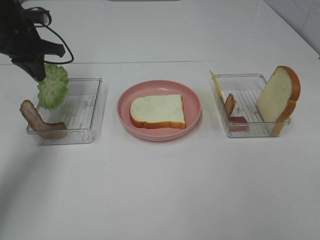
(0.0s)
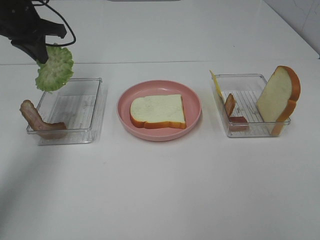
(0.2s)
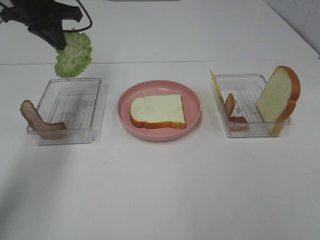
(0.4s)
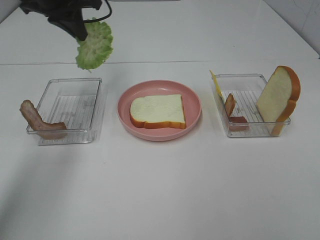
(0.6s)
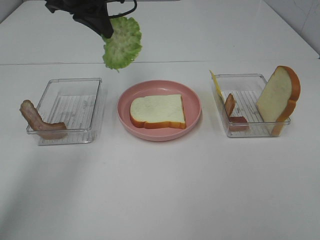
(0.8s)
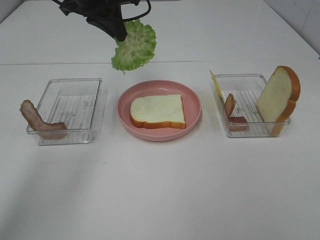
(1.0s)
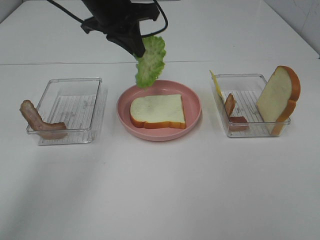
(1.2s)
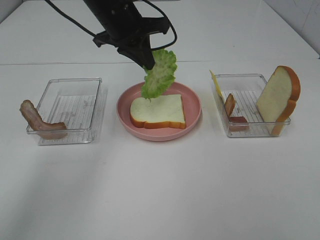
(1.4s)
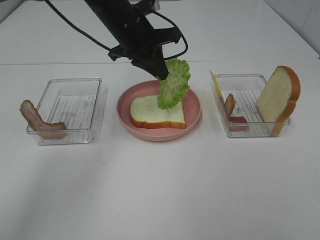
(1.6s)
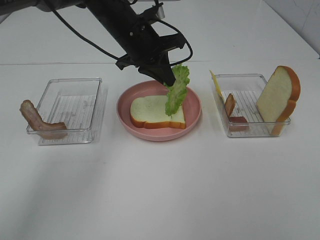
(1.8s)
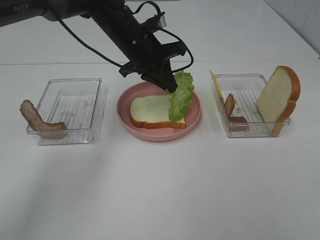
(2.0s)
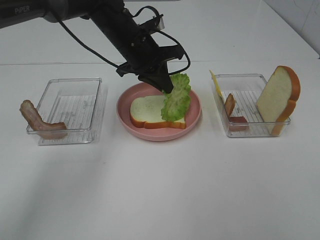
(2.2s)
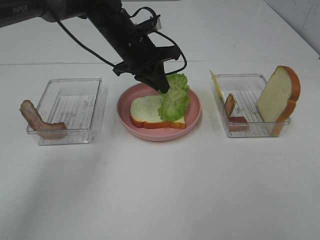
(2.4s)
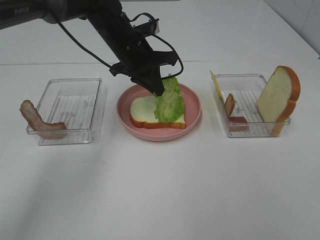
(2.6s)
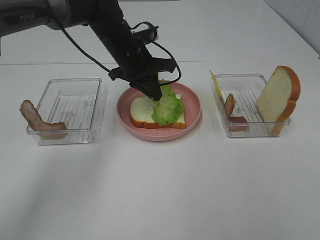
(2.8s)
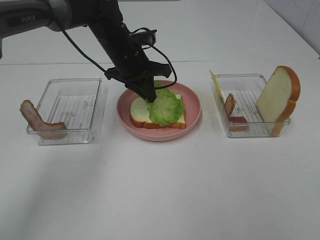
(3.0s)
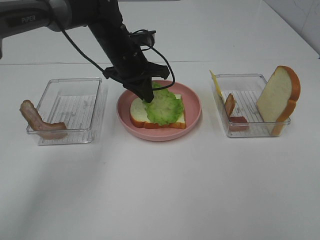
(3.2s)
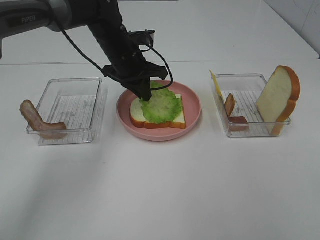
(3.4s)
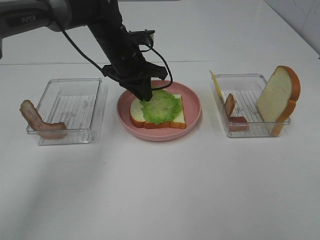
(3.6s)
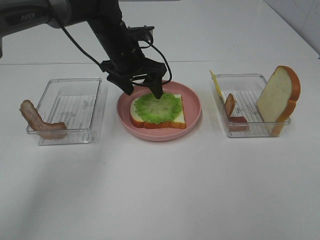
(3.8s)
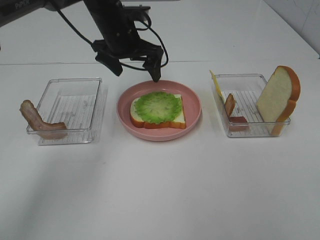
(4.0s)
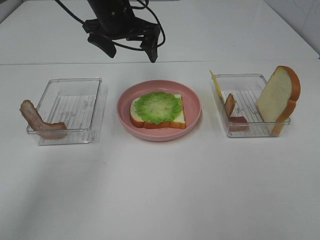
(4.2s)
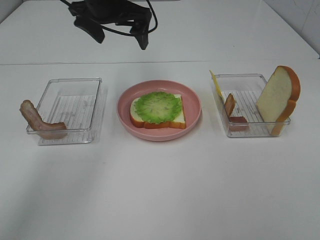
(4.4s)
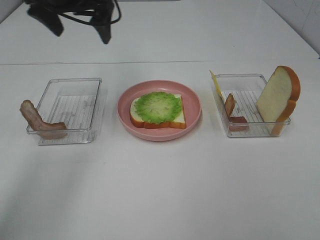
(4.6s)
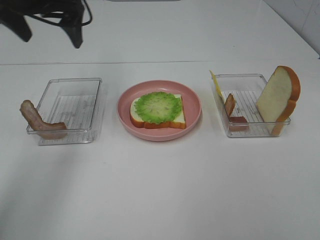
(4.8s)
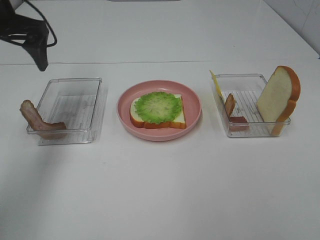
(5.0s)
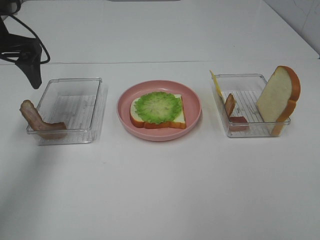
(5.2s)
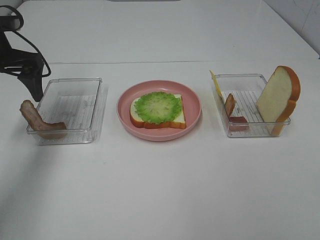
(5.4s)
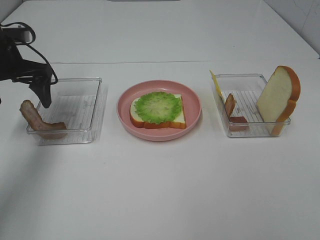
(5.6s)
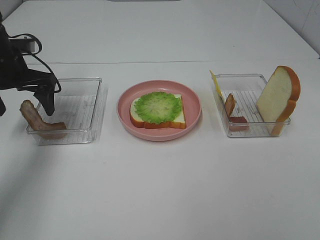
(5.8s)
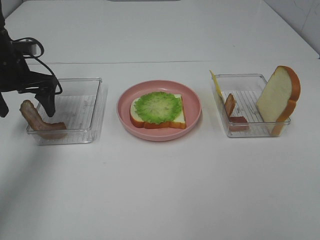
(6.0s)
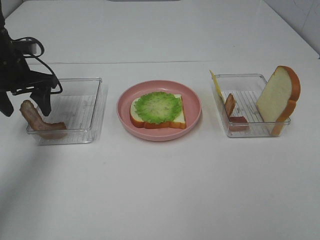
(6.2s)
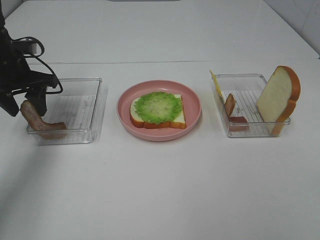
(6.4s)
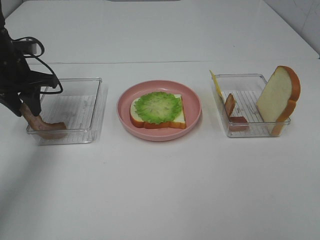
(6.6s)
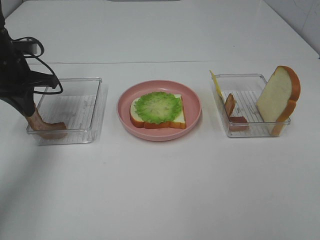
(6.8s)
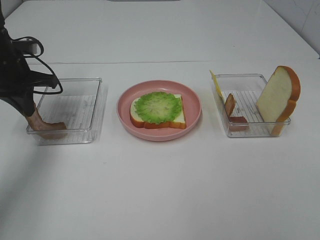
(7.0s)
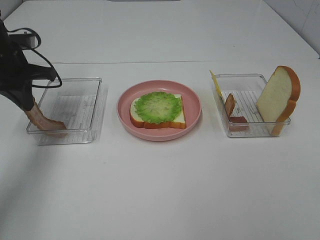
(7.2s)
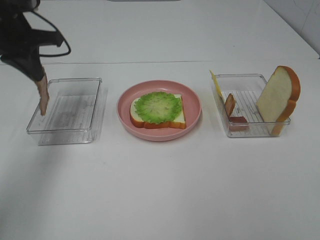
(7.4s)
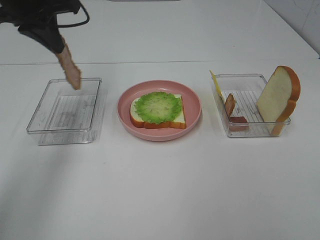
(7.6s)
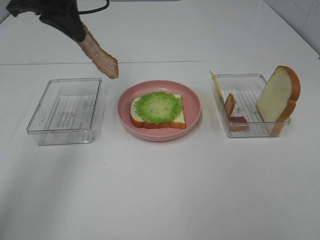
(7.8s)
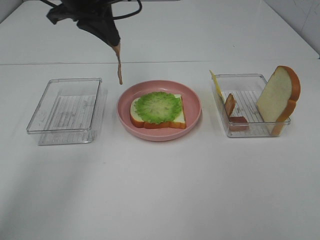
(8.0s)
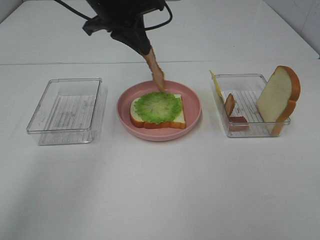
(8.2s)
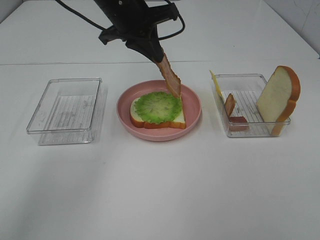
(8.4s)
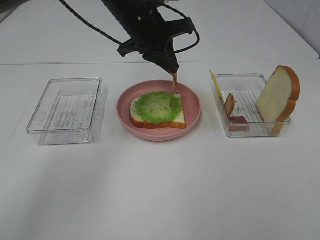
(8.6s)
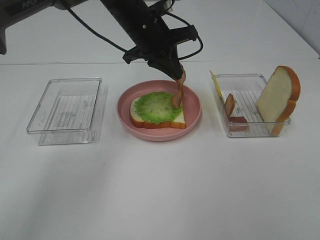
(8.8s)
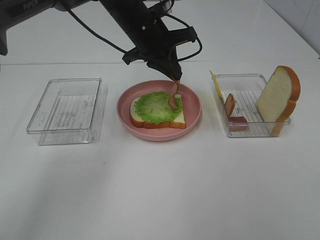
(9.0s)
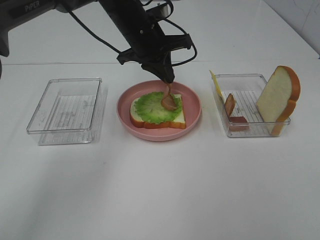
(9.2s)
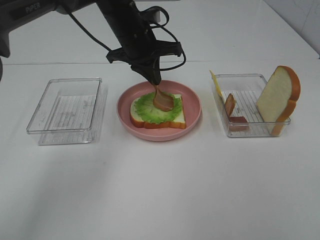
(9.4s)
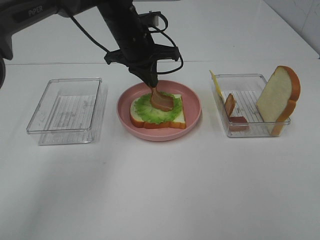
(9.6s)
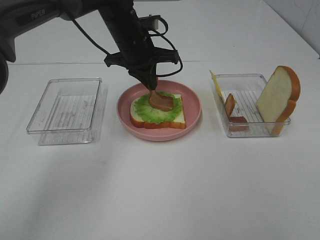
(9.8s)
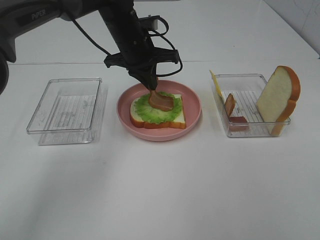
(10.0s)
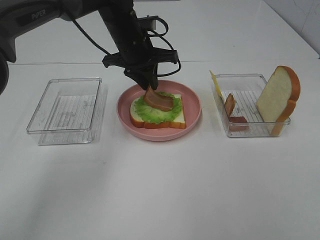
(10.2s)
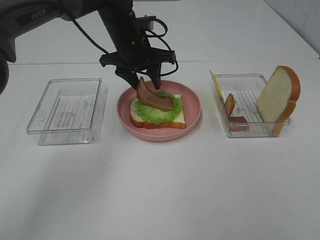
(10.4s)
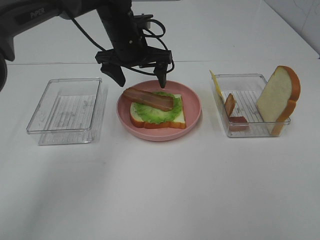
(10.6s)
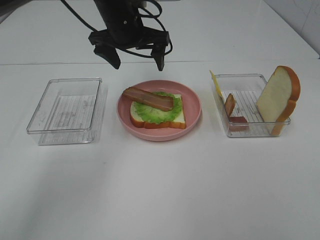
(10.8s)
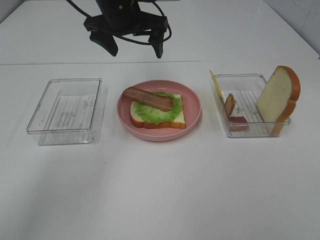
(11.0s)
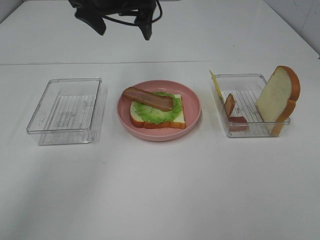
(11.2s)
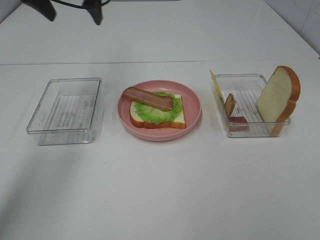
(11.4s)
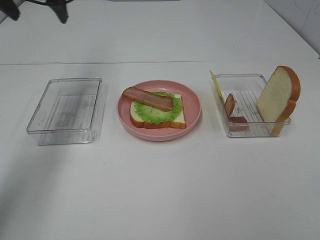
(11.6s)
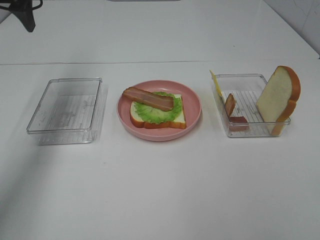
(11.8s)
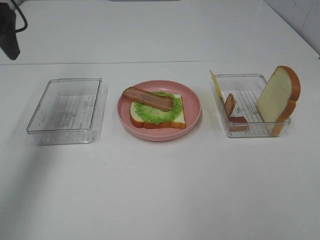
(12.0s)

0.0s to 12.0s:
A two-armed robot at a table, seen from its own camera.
Task of the whole recording: Make sandwiches.
Step, 0.0s to 3.8s: Left hand:place the lettuce slice on the bread slice.
Step, 4.0s to 7.0s: Left hand:grab the bacon.
Step, 7.2s to 10.6s: Left hand:place bacon on lettuce slice.
0.0s to 1.6s: The left gripper travels to the right by about 20 cm.
1.6s to 3.0s: The left gripper shifts about 5 cm downward.
3.0s to 4.4s: The left gripper goes some 10 cm upward, and opens its fingers.
4.4s to 6.0s: The left gripper heads to the left and downward, covering some 20 cm.
6.0s to 7.6s: The left gripper is displaced upward and to the right by roughly 15 cm, and closes.
7.6s to 9.0s: The left gripper goes approximately 20 cm to the right and downward.
9.0s to 10.4s: The left gripper opens its fingers.
10.4s to 12.0s: The left gripper is displaced to the left, upward and backward by approximately 30 cm, and opens.

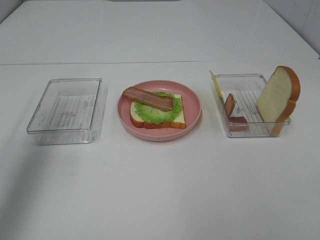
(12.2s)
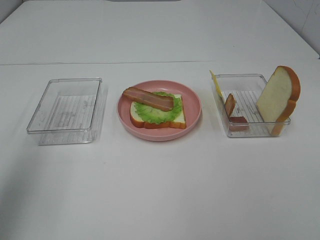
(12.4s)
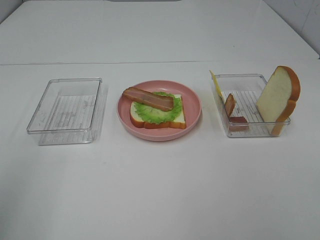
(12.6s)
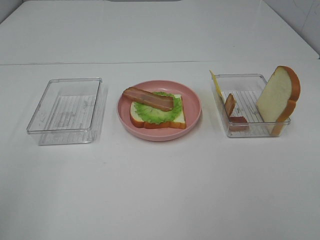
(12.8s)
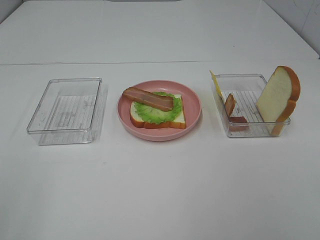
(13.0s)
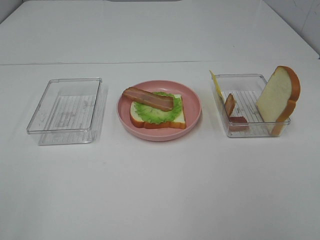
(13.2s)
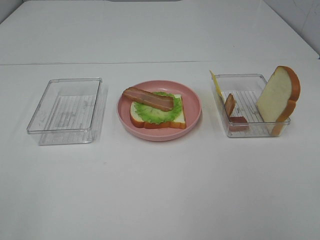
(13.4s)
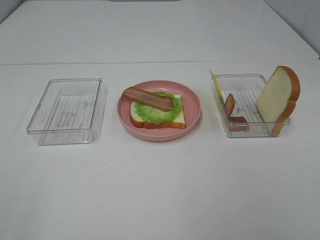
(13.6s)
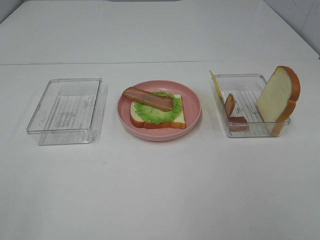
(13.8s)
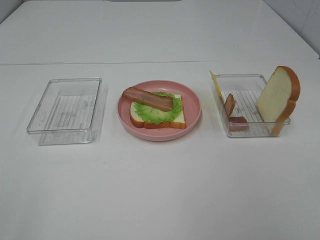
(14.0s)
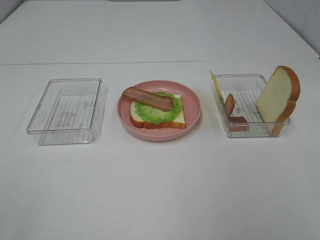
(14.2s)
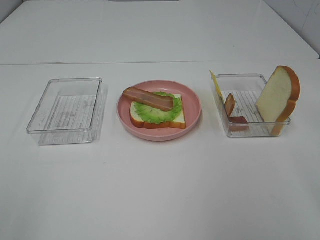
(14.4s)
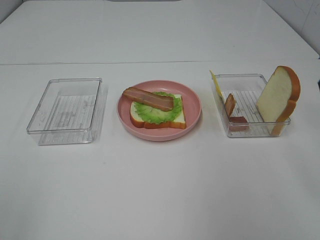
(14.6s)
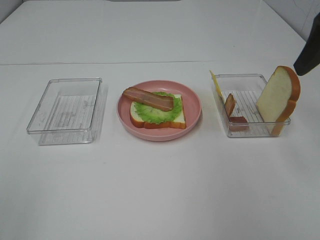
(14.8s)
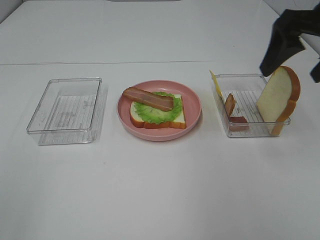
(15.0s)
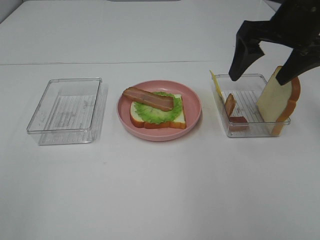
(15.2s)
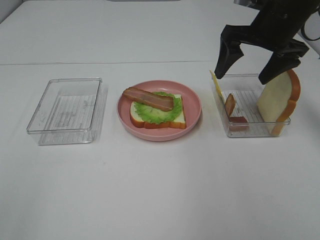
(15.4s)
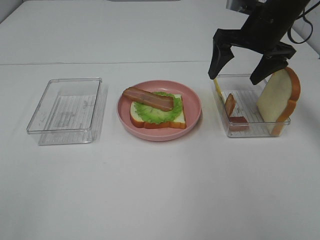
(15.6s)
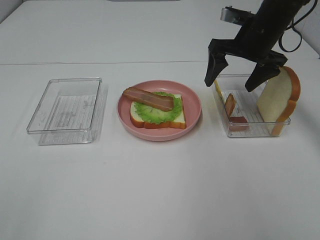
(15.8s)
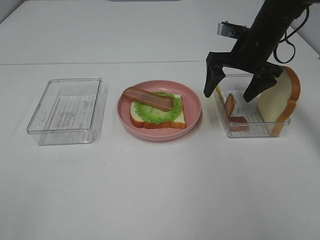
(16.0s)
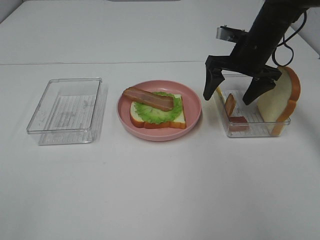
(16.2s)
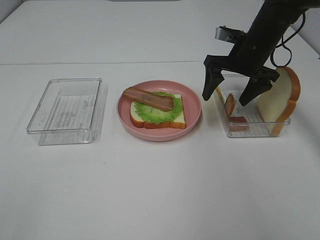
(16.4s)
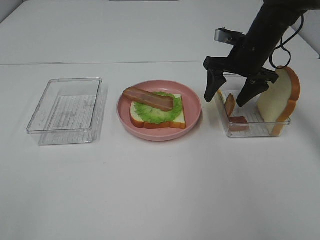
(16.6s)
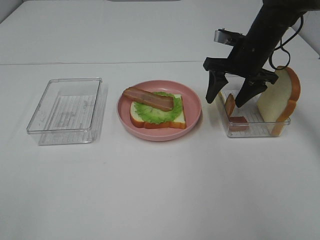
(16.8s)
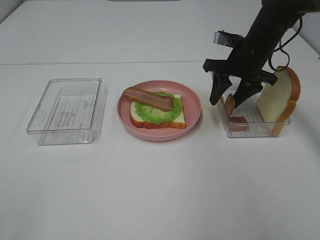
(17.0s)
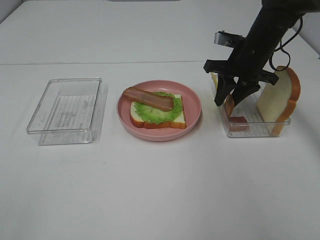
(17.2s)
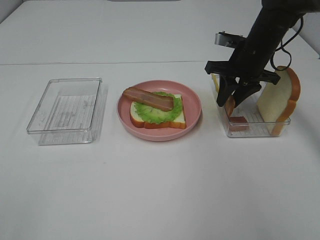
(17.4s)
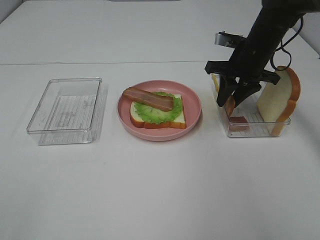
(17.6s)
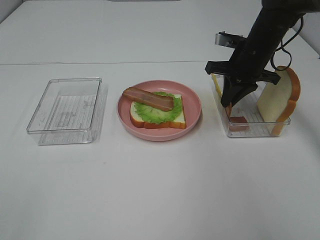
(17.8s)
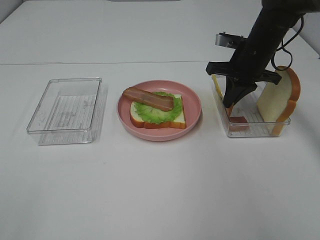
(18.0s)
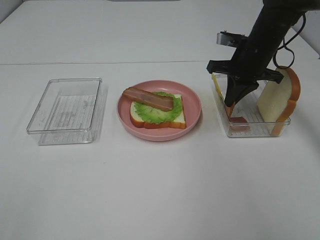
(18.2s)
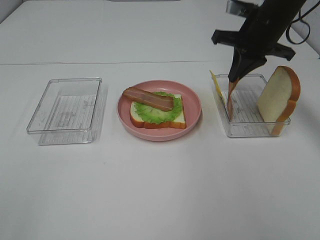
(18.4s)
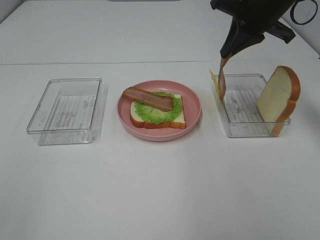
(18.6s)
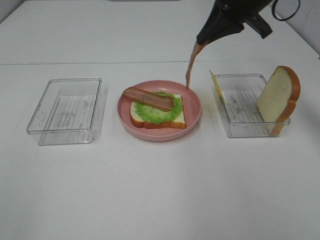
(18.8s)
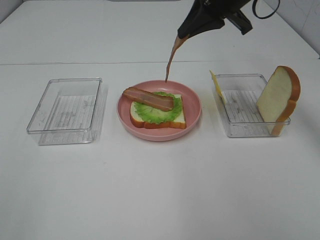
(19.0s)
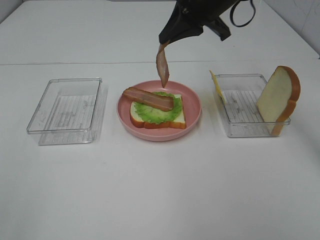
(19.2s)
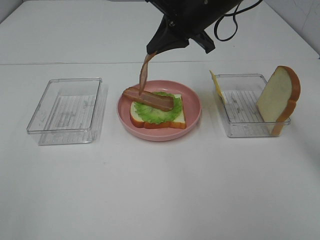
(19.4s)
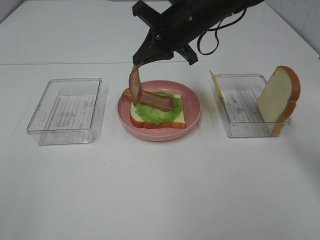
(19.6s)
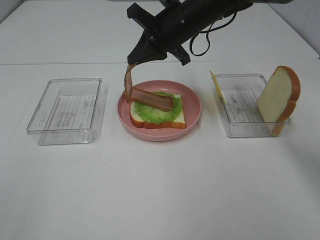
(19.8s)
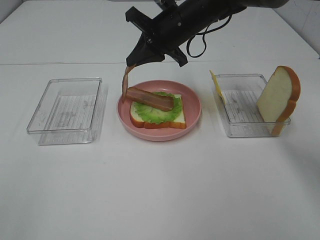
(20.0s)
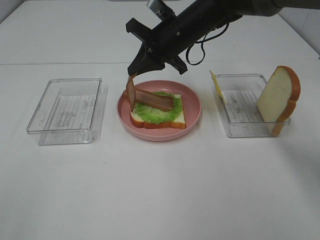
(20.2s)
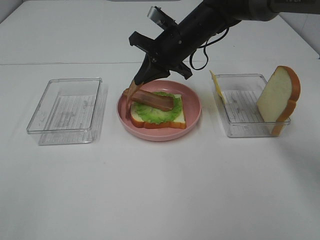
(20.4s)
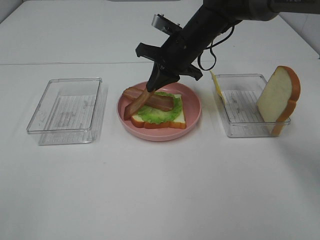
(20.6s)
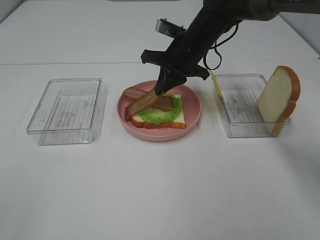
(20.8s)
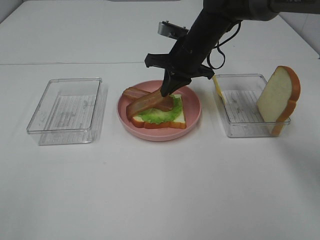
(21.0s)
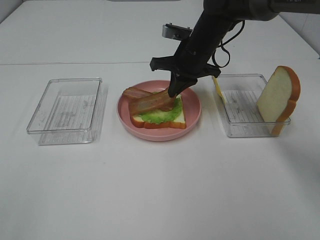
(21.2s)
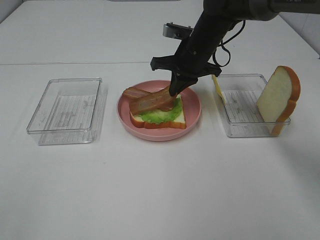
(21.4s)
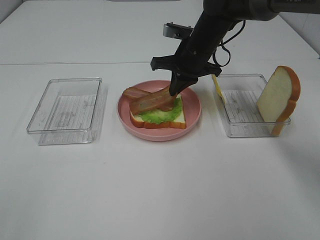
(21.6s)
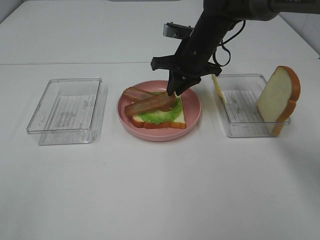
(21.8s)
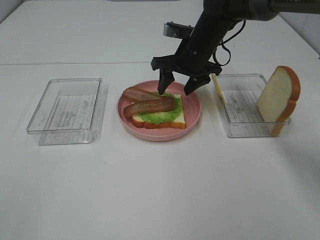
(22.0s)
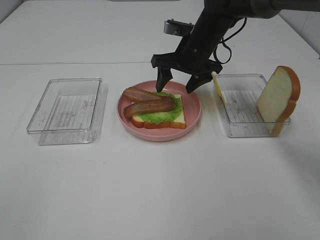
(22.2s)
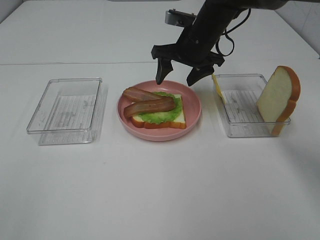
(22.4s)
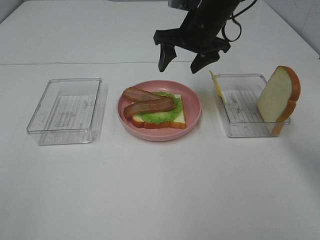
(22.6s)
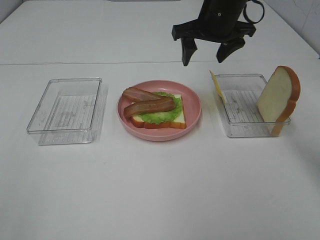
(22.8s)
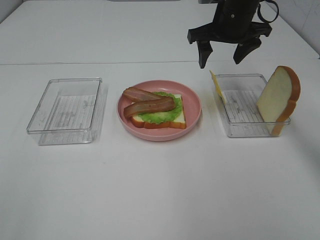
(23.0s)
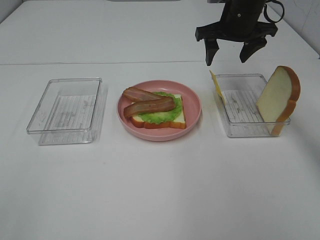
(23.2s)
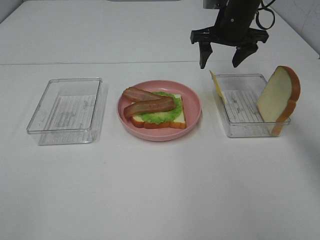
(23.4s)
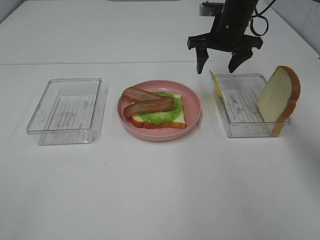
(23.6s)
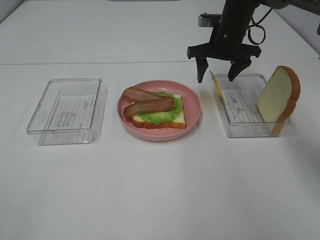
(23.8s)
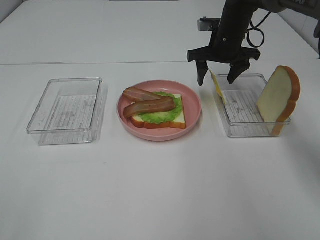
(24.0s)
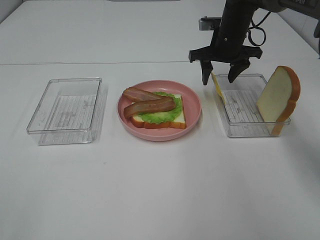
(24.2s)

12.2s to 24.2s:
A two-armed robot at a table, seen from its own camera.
Task of the whole recording: Make sandwiches.
Step, 12.2s to 18.0s: Right hand:grab the bacon.
Step, 18.2s to 22.2s: Right hand:place bacon on bacon.
12.2s to 13.8s: The left gripper moves backward, about 25 cm.
13.8s to 15.2s: The right gripper is displaced forward by some 35 cm.
15.2s to 16.6s: The right gripper goes roughly 15 cm downward and forward.
16.6s to 18.2s: The right gripper closes.
18.2s to 19.8s: The right gripper travels to the left by some 15 cm.
19.8s to 21.2s: The right gripper heads downward, covering about 5 cm.
21.2s to 22.6s: The right gripper goes some 5 cm upward, and opens up.
22.6s to 24.2s: The right gripper heads to the right, downward and forward, covering about 10 cm.
